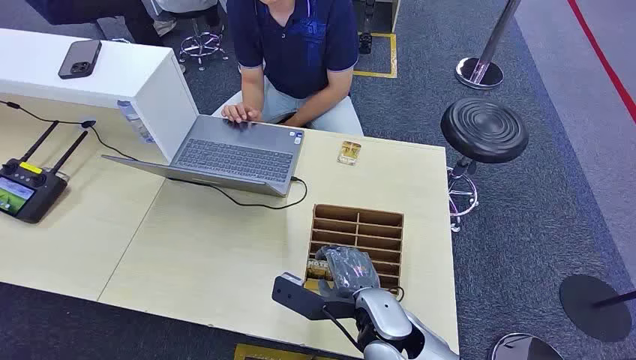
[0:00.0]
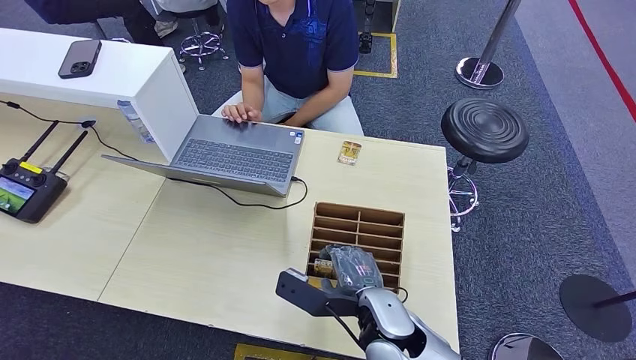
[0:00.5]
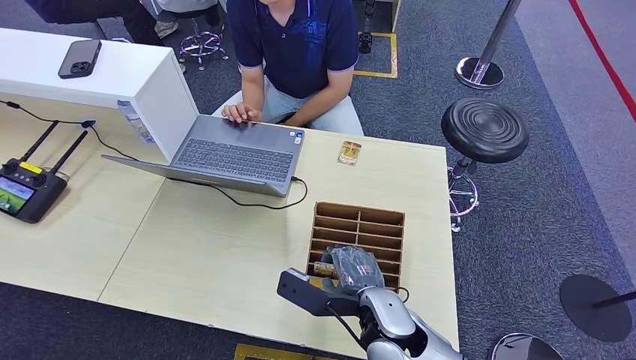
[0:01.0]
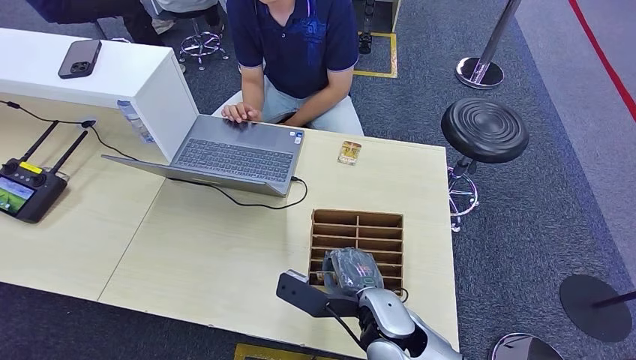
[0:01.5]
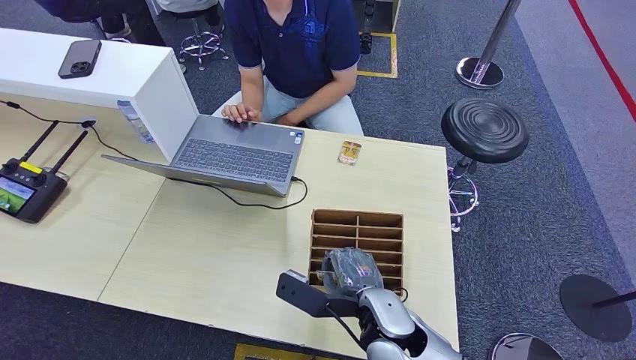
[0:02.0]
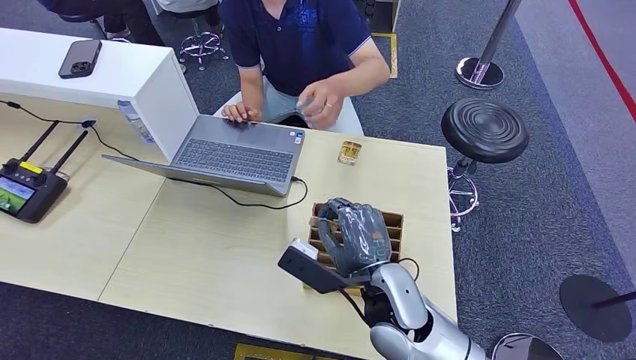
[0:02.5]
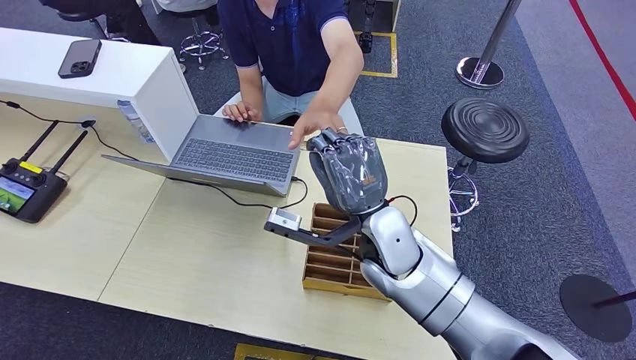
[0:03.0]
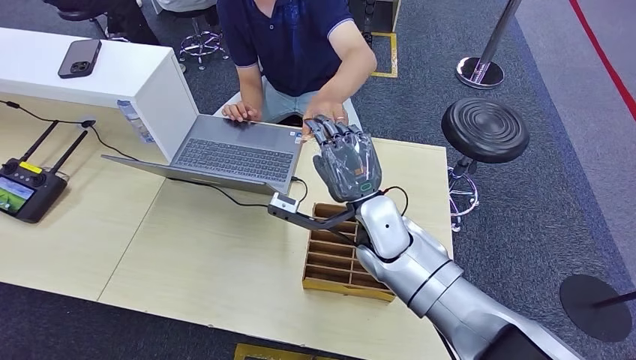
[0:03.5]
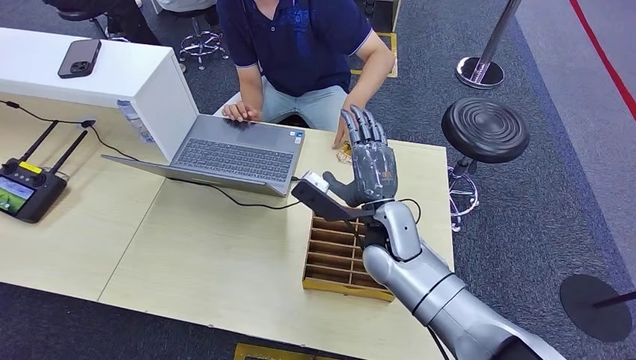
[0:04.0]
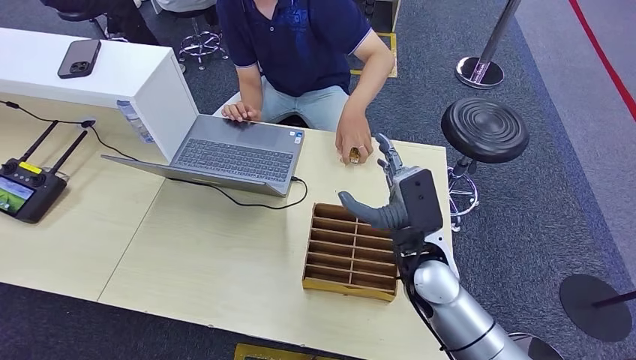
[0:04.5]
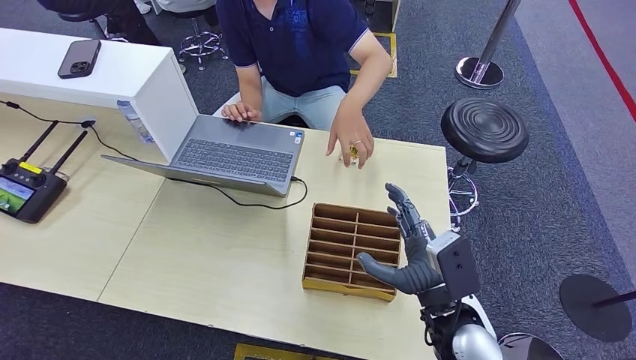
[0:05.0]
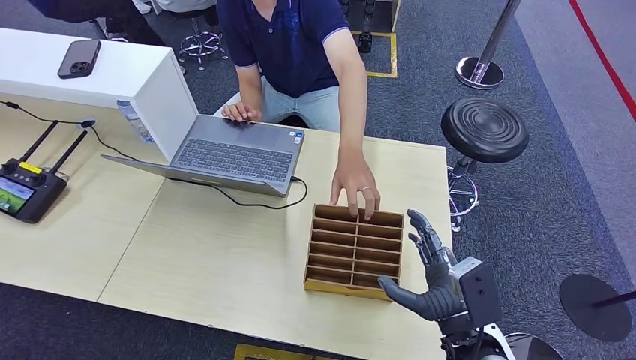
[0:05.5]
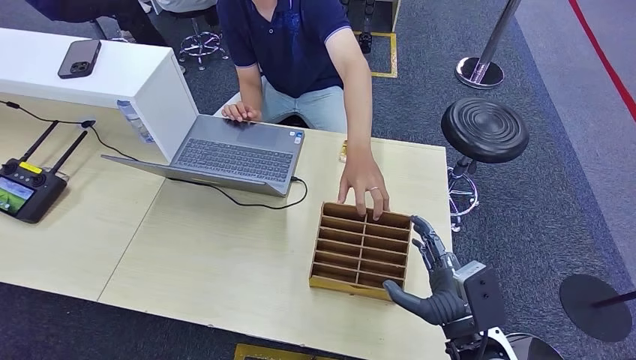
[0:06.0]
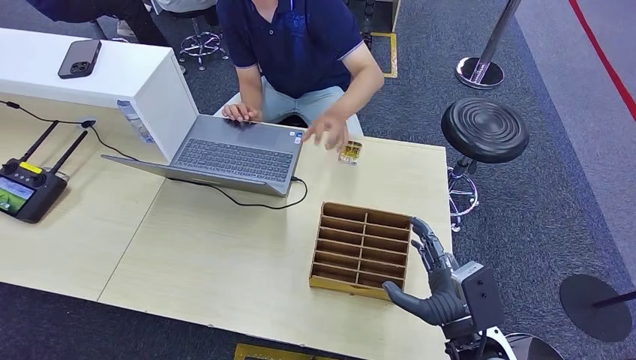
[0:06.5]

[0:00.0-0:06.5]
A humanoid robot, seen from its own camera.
Step, 0:00.0 to 0:02.5: Pick up the room card from the card holder.
Step, 0:03.0 to 0:06.0: Hand the room card to the target.
0:02.0 to 0:04.5: The right hand travels to the right and upward by some 10 cm, and moves some 15 cm forward and comes back.
0:04.5 to 0:06.5: The right hand heads downward and backward, covering roughly 10 cm.
